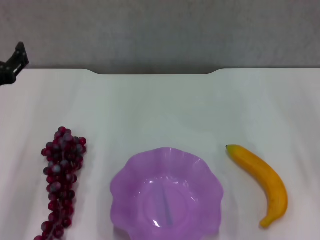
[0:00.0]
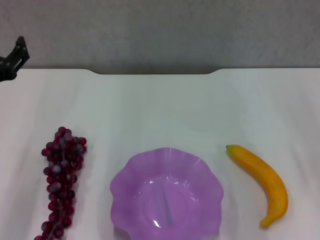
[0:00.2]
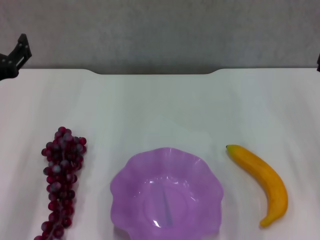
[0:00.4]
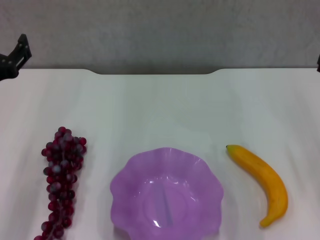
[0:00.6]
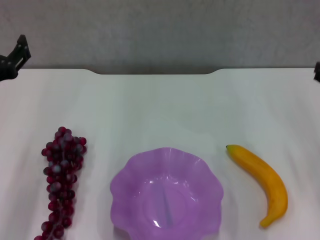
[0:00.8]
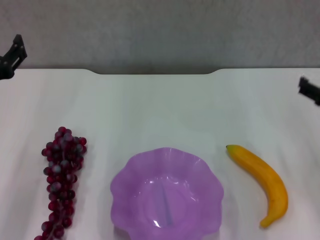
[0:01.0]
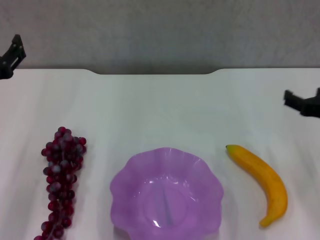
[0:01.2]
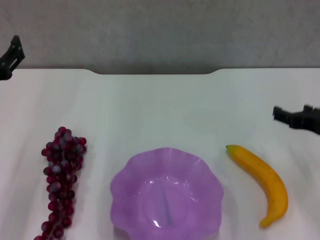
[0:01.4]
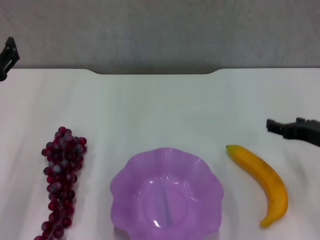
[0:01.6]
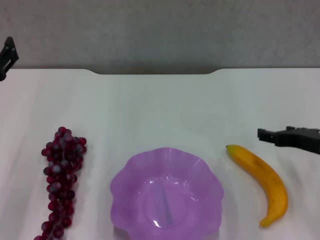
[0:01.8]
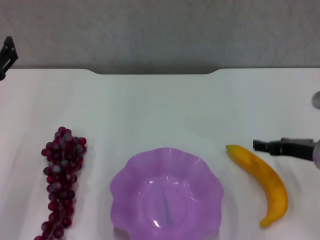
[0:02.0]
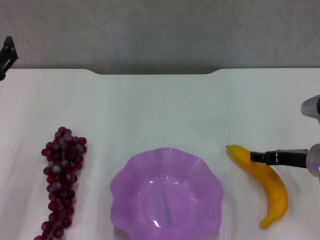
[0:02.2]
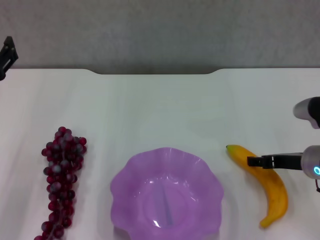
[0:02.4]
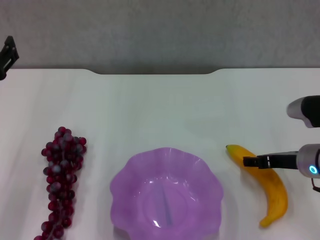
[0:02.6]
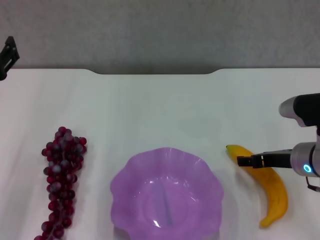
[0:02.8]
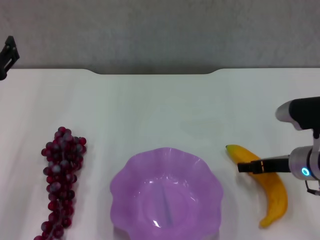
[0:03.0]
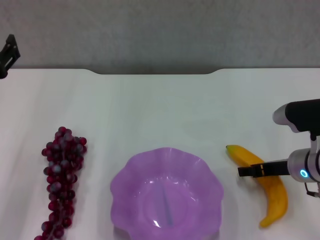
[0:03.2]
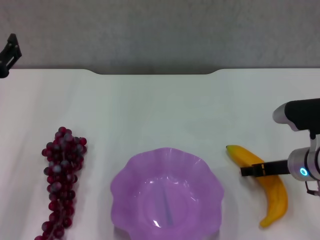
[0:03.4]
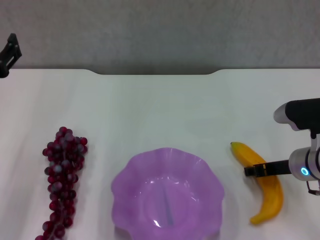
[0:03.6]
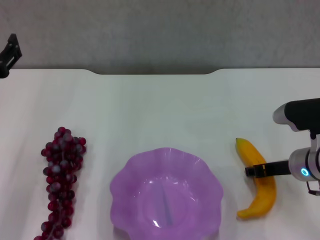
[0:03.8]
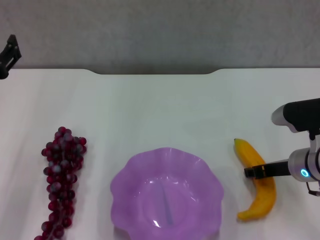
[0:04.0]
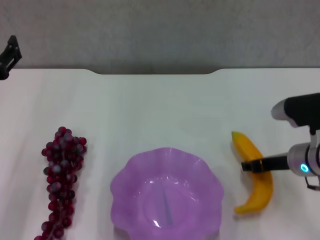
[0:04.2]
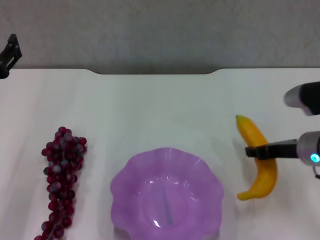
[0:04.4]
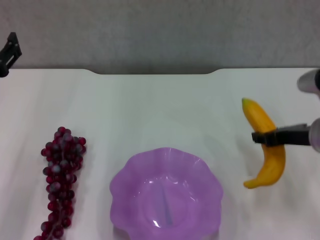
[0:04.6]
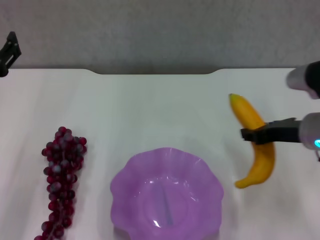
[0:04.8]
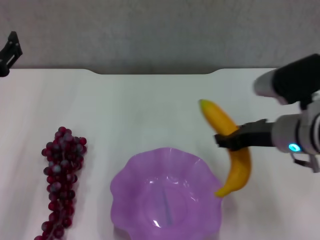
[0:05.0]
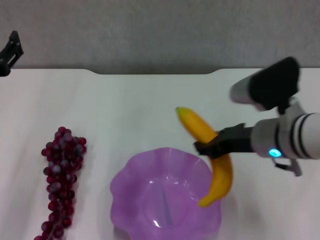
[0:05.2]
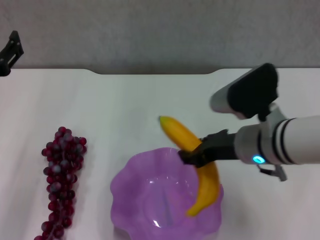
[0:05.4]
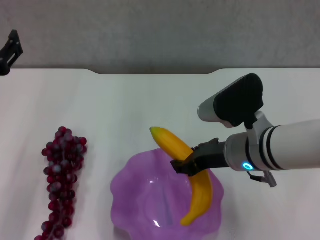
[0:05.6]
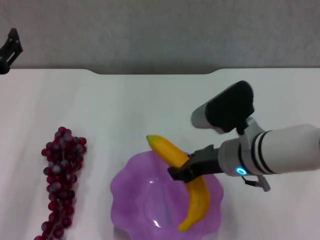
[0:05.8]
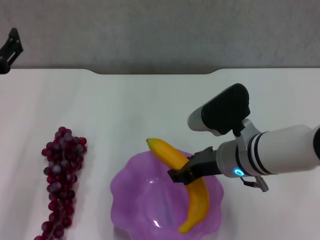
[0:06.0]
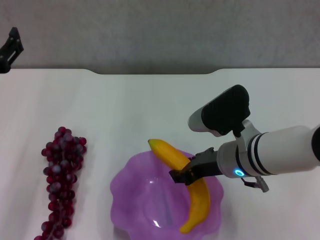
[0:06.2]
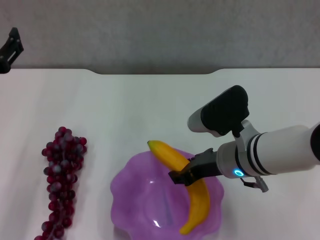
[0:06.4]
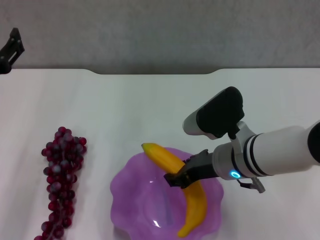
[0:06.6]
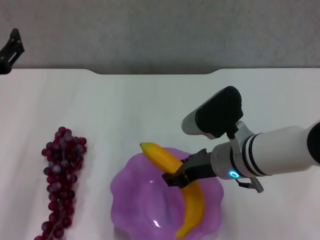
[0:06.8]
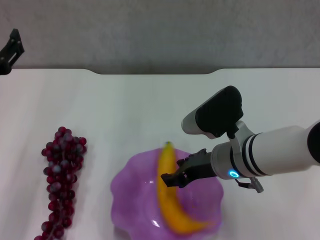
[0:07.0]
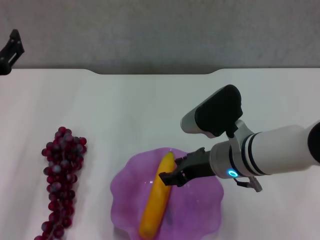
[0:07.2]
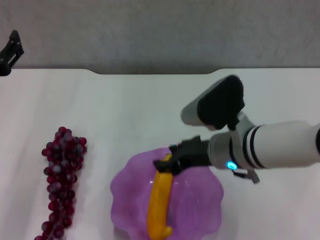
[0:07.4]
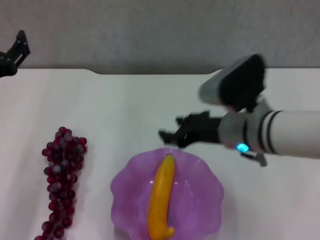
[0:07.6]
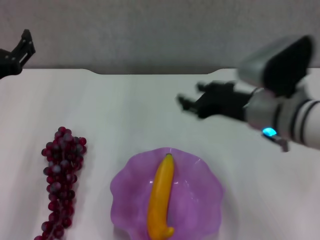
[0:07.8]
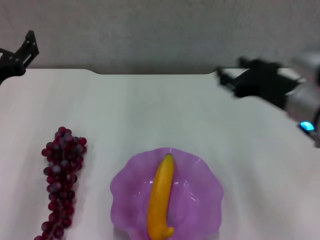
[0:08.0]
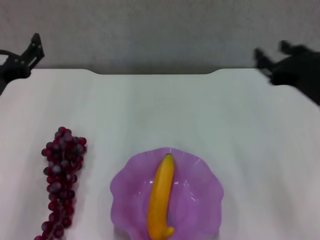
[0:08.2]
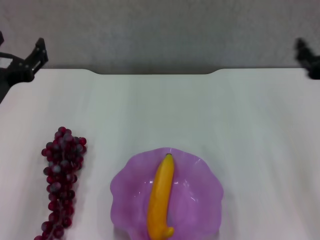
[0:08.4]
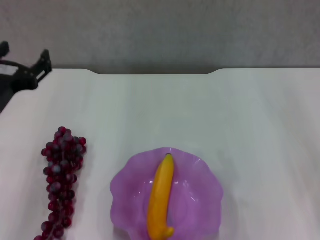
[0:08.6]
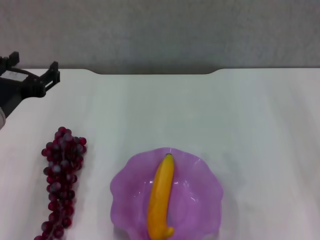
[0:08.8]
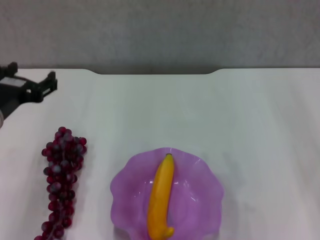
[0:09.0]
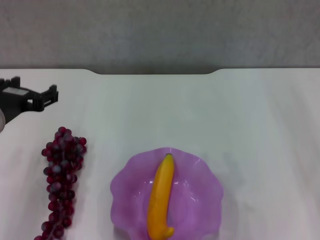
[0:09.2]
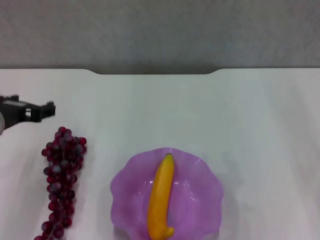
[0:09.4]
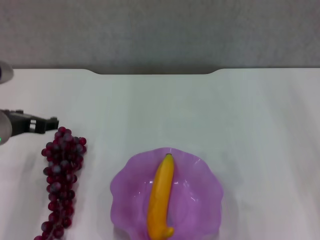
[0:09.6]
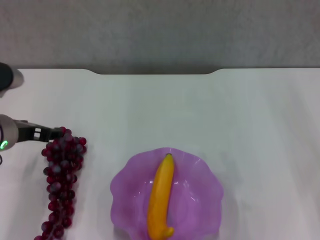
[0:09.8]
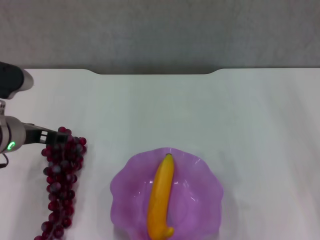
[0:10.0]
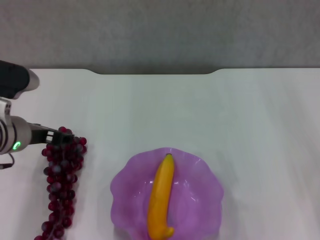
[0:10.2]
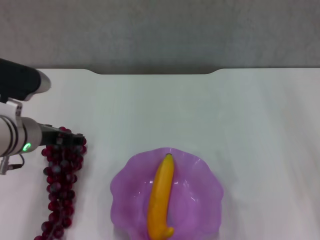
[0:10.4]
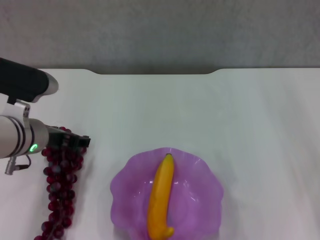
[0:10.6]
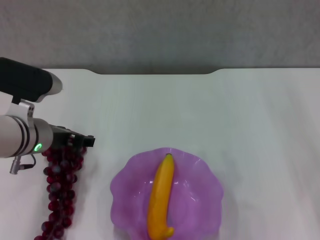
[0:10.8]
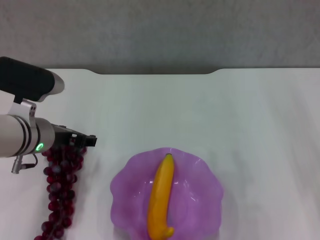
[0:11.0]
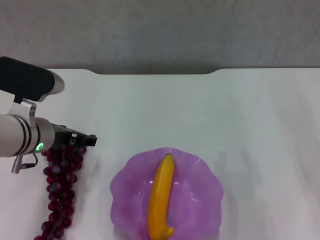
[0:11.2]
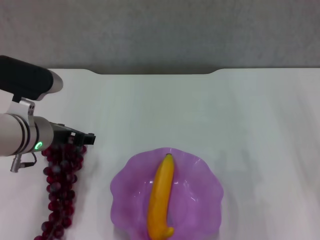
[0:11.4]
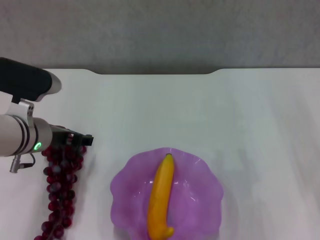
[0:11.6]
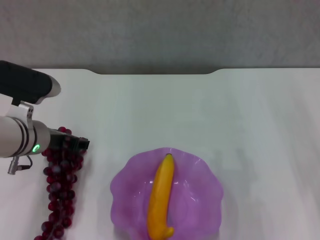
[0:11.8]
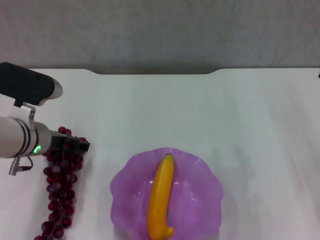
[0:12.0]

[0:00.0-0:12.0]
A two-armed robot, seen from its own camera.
Step, 0:00.0 to 0:03.8: Grasp the banana with right gripper.
Step, 0:04.2 to 0:07.2: Place the banana in the purple plate with right gripper.
0:00.0 to 0:01.6: The right gripper goes approximately 5 cm downward.
0:01.6 to 0:03.0: The right gripper changes place by approximately 5 cm.
0:03.0 to 0:04.4: The right gripper closes its fingers.
0:04.4 to 0:06.0: The right gripper travels to the left by about 15 cm.
0:06.0 to 0:07.6: The grippers move only a little.
0:07.6 to 0:09.0: The right gripper moves to the right and backward, roughly 15 cm.
0:09.0 to 0:10.4: The left gripper changes place by some 5 cm.
0:10.4 to 0:12.0: The grippers make only small movements.

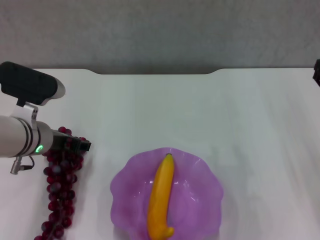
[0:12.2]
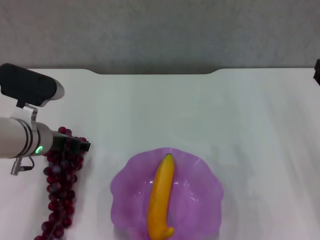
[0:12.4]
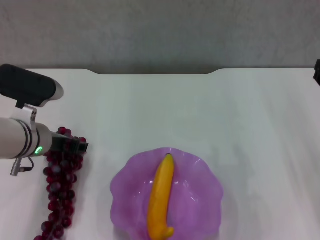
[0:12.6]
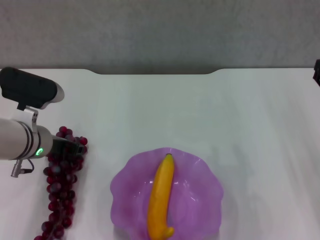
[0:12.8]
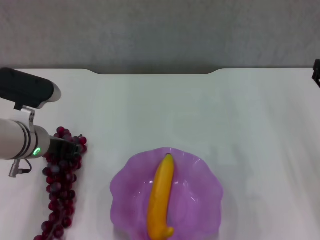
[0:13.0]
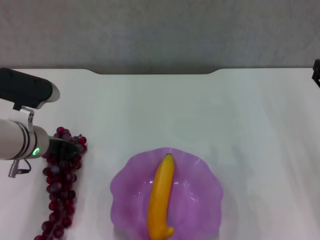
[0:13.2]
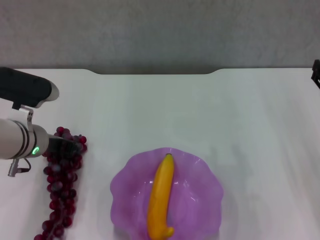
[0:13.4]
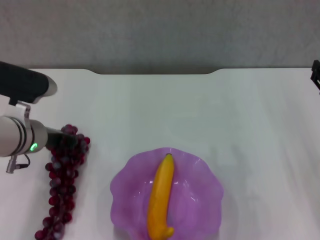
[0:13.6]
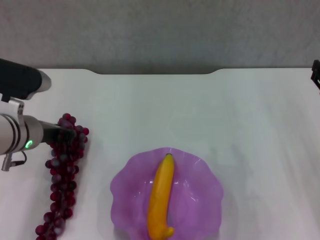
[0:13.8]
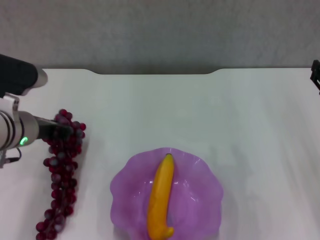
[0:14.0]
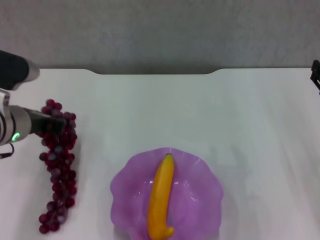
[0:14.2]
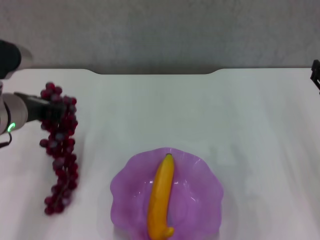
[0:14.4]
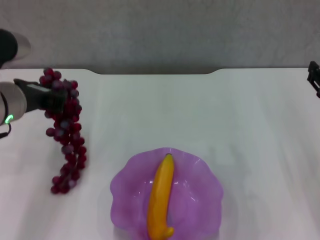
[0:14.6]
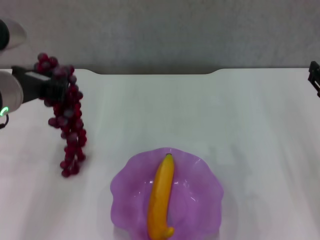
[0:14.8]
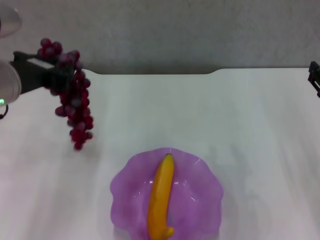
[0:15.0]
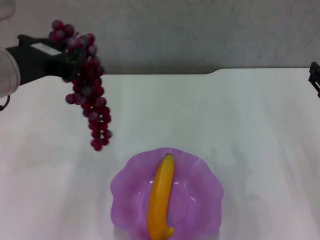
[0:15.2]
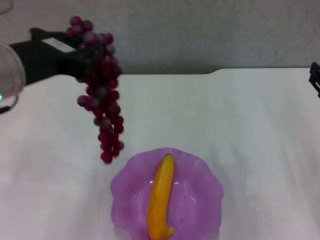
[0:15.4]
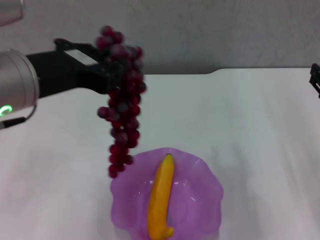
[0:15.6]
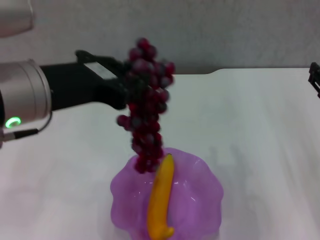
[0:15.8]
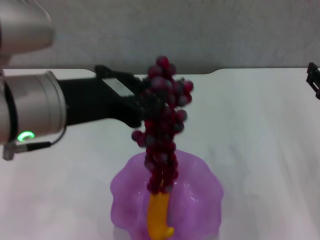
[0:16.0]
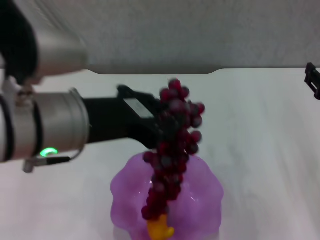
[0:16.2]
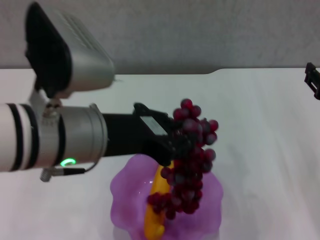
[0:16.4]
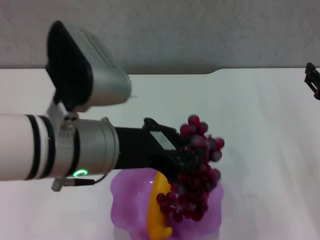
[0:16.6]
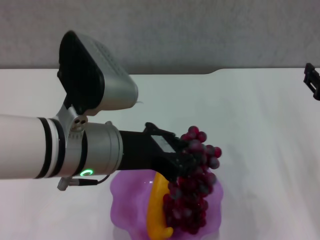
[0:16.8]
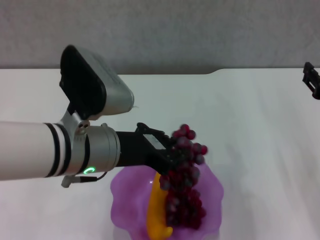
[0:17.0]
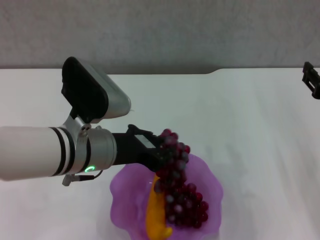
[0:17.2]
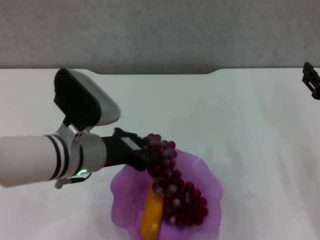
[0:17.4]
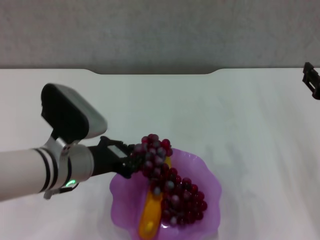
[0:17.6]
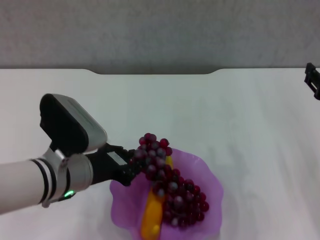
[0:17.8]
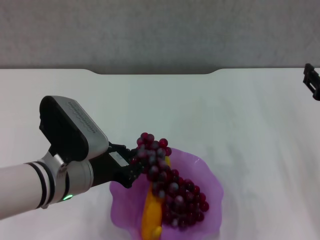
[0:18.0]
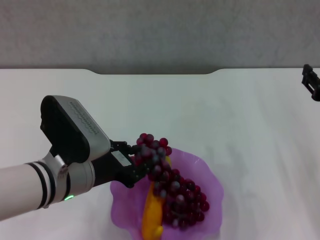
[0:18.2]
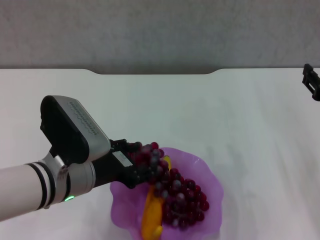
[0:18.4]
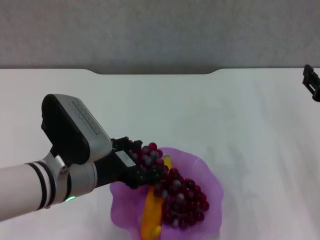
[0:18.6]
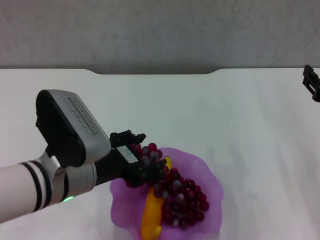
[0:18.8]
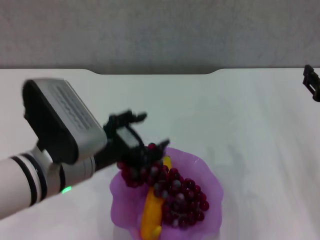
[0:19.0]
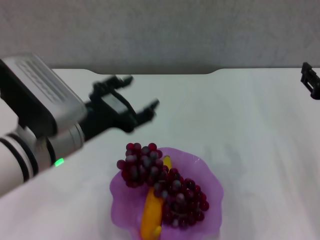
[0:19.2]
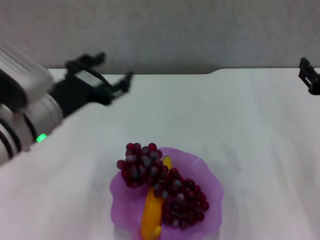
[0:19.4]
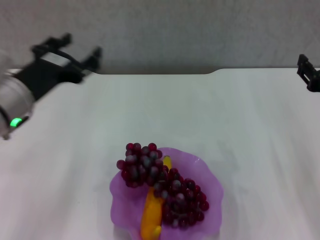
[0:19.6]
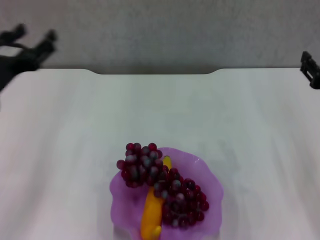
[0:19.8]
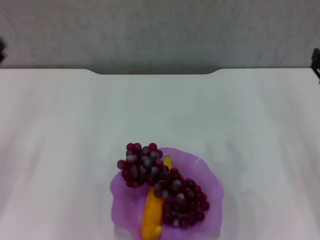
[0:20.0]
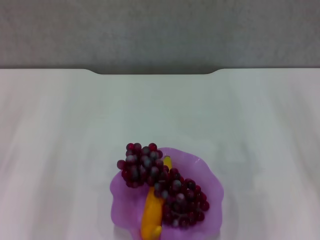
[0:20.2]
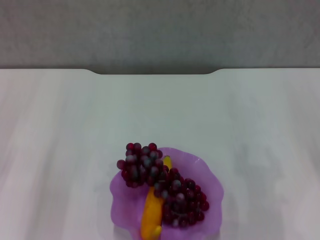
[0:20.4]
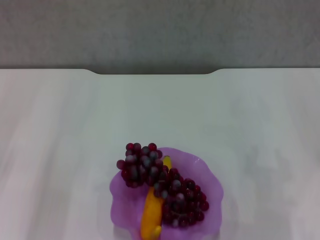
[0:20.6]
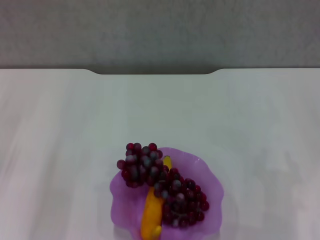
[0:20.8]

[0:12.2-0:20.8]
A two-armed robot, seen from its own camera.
Step, 0:13.6 to 0:18.8: Place the grape in the purple plate with left gripper.
0:12.2 to 0:13.6: The left gripper closes.
0:13.6 to 0:15.0: The left gripper heads upward and backward, covering approximately 15 cm.
0:15.0 to 0:16.6: The left gripper shifts about 10 cm to the right and backward.
0:16.6 to 0:18.0: The left gripper shifts approximately 10 cm downward.
0:18.0 to 0:19.4: The left gripper goes approximately 5 cm upward, and opens.
0:19.4 to 0:20.8: The right gripper heads to the right, covering roughly 5 cm, while the left gripper moves to the left, some 15 cm.
